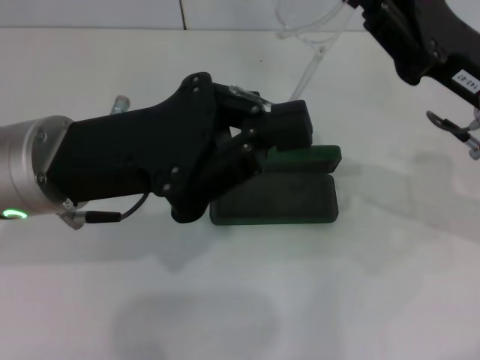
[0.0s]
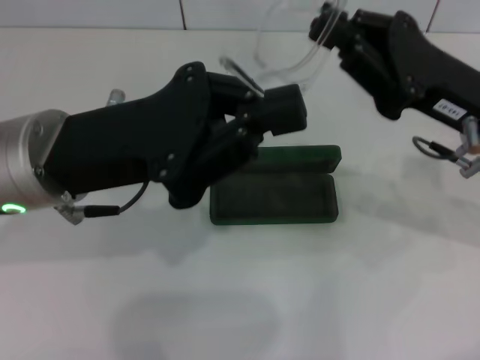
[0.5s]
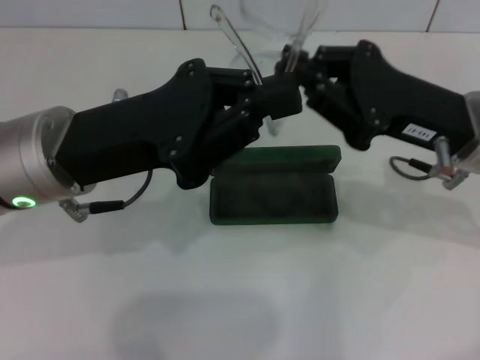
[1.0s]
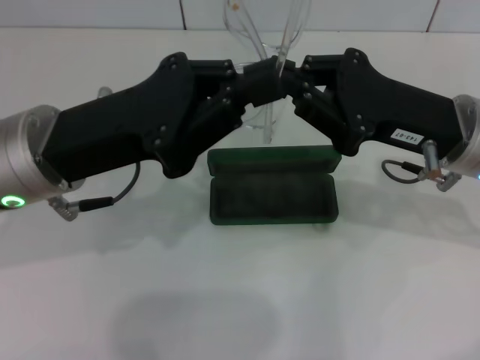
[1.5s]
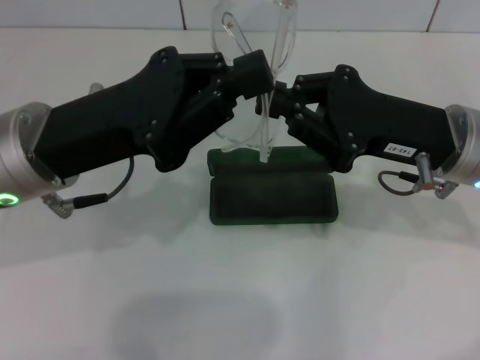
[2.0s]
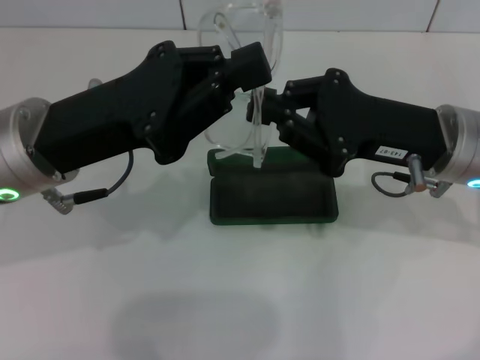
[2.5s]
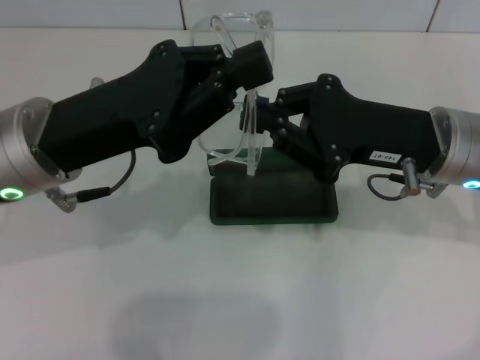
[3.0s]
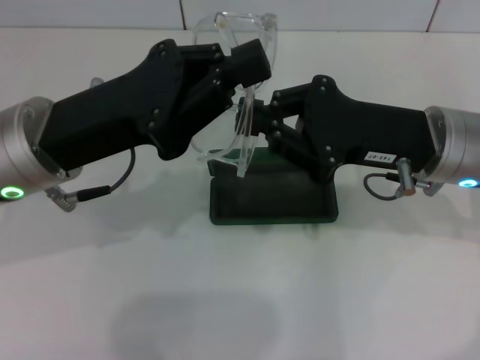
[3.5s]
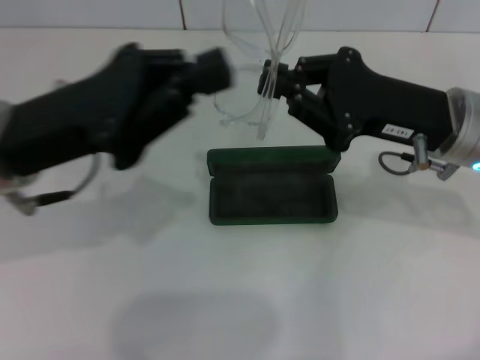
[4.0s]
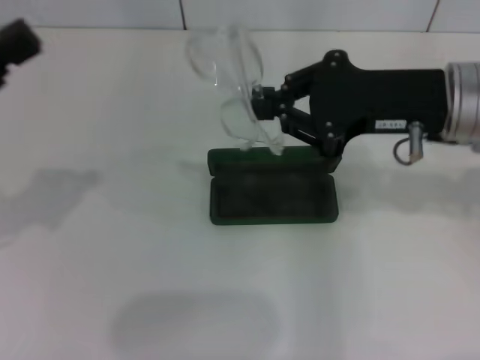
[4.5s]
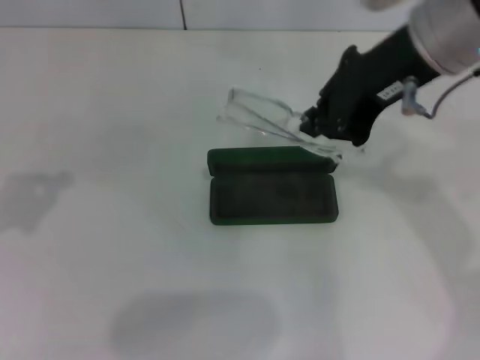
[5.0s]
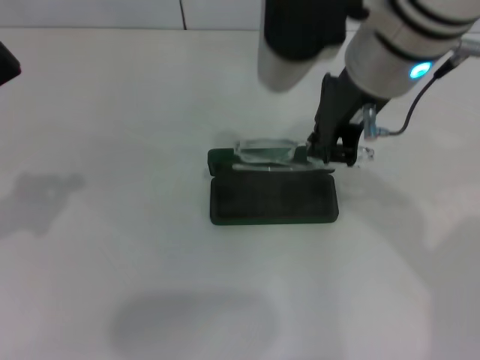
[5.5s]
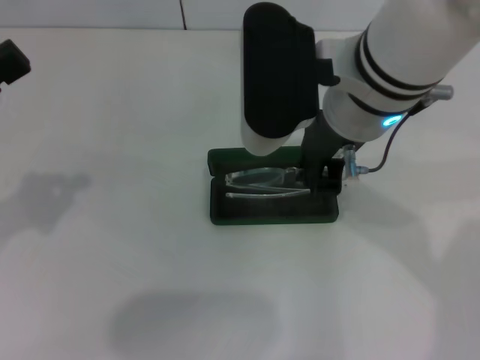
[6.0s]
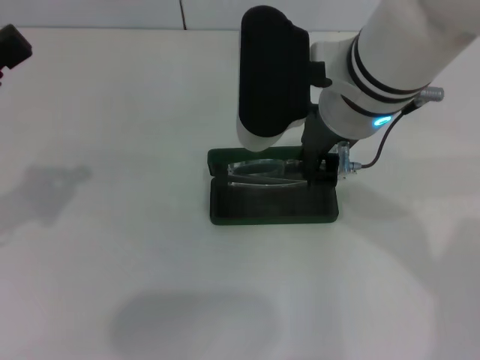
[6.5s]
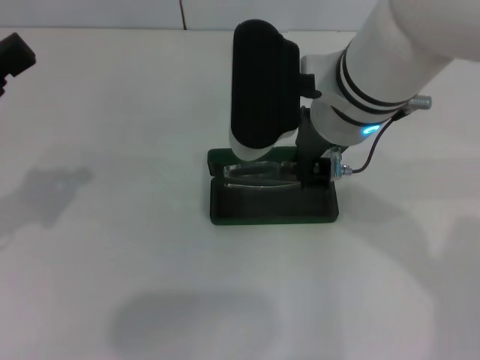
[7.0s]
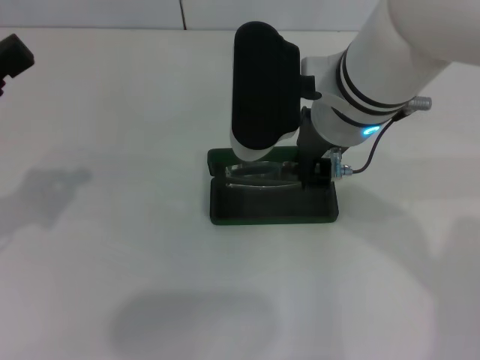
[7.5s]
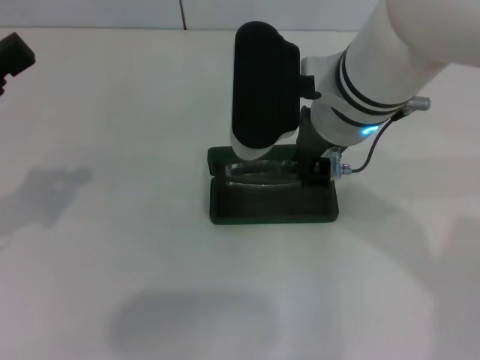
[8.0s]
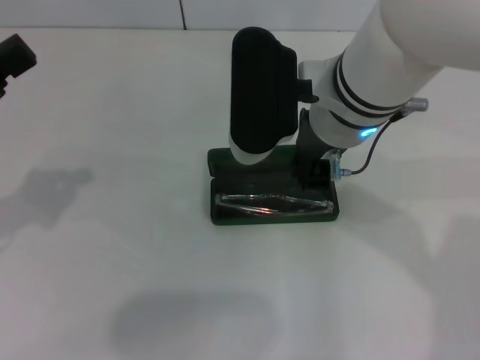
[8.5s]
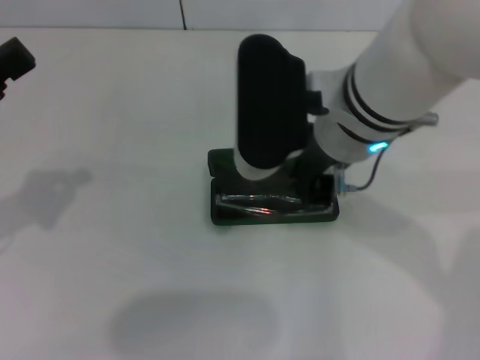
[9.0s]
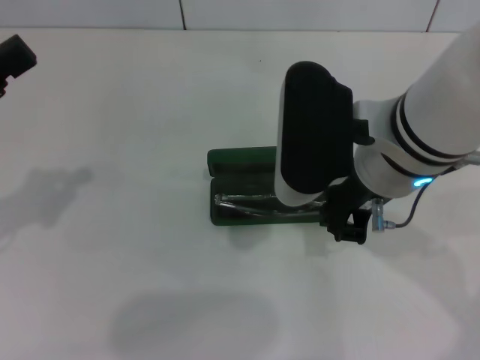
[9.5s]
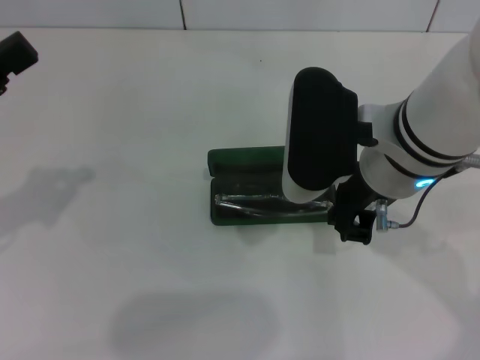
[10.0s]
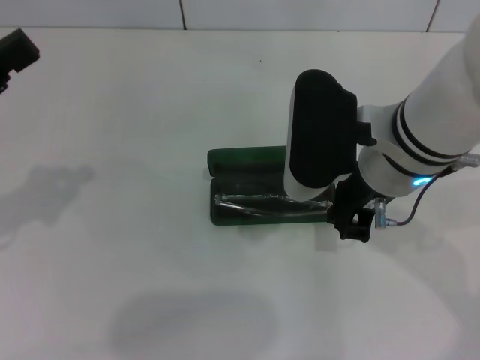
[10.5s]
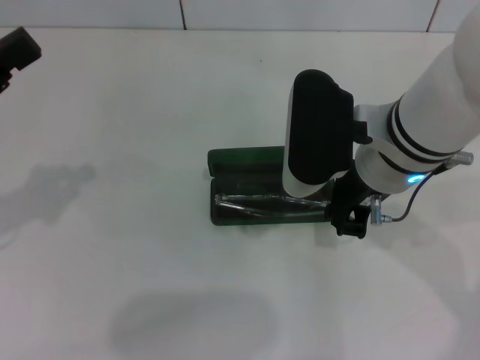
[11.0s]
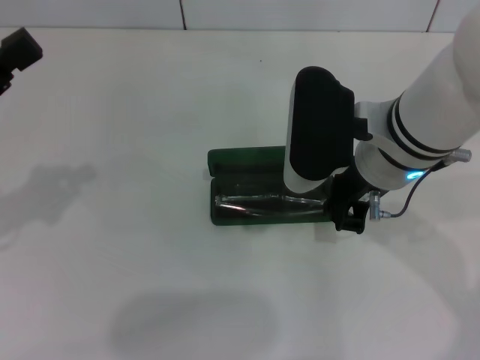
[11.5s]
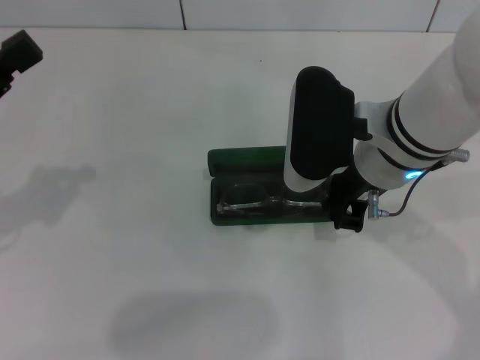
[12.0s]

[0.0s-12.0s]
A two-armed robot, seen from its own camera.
Step, 0.0s to 3.5s: Fold the frame with your left hand.
Step, 4.0s to 9.0s: Put the glasses into the case with your right hand.
2.0s to 4.0s: The grippers move only a little.
4.0s to 6.0s: The left gripper goes about 10 cm to the left. Meanwhile the right gripper shifts about 15 cm to the left and upward.
6.0s to 8.0s: The grippers make only small movements.
8.0s to 10.0s: The right gripper ends up approximately 5 cm from where it was.
10.0s to 12.0s: The grippers make only small movements.

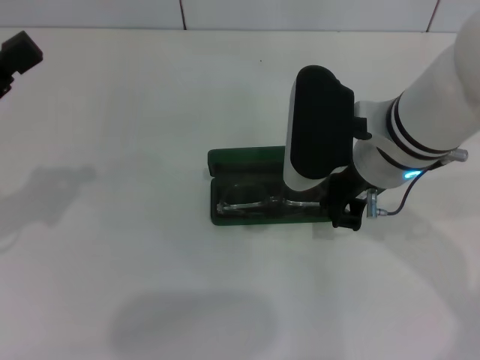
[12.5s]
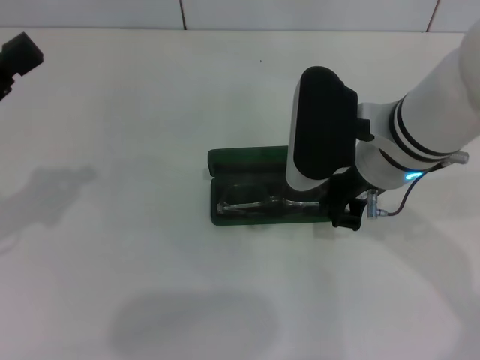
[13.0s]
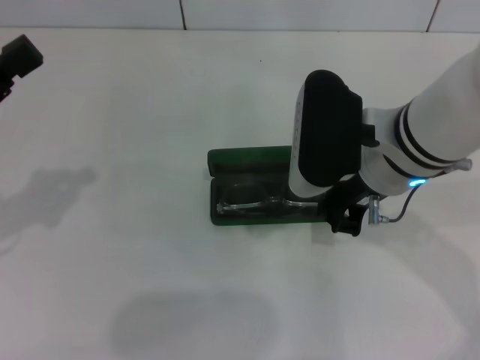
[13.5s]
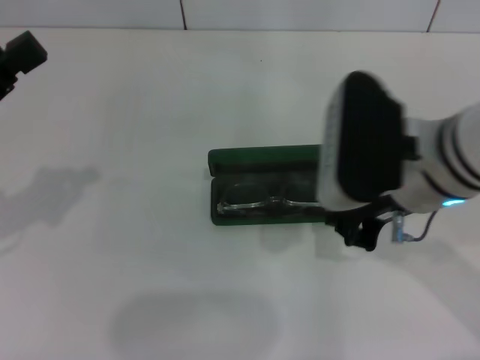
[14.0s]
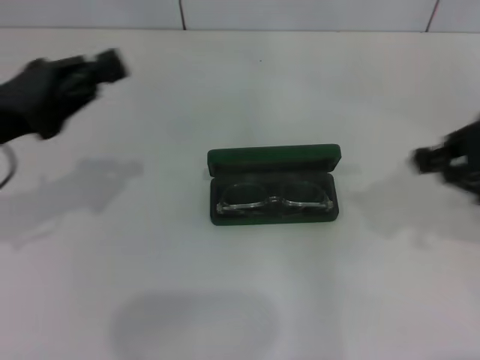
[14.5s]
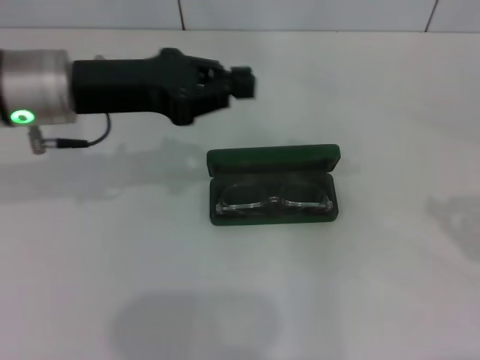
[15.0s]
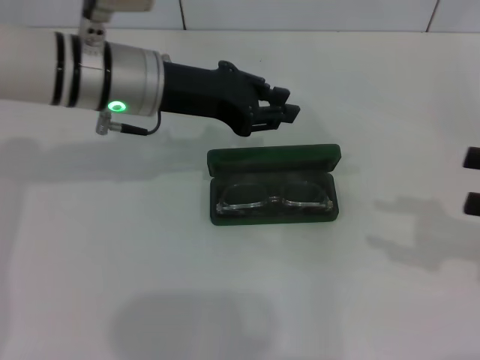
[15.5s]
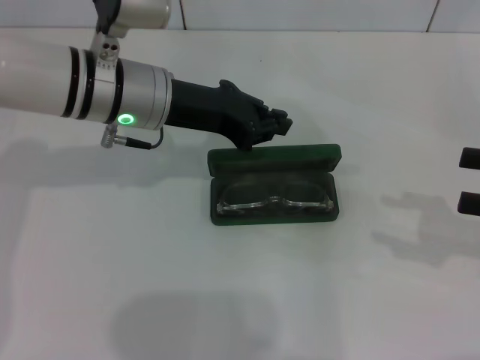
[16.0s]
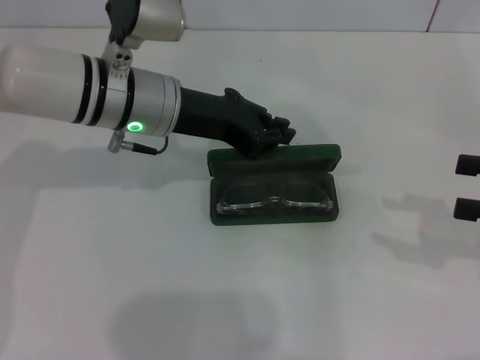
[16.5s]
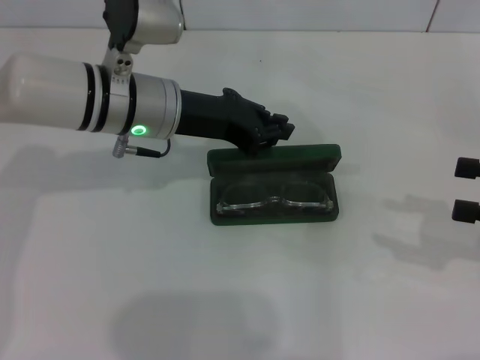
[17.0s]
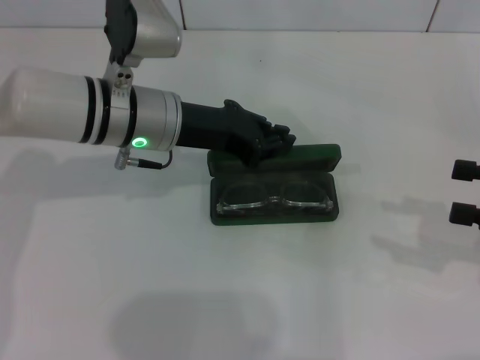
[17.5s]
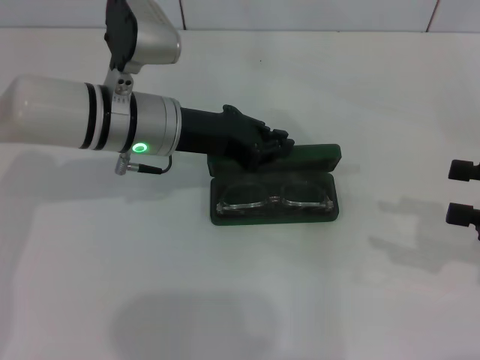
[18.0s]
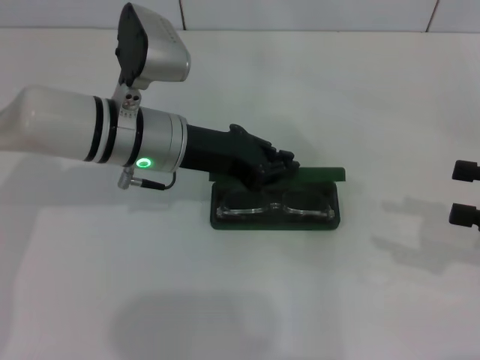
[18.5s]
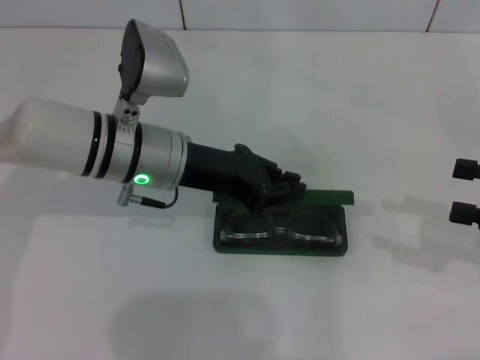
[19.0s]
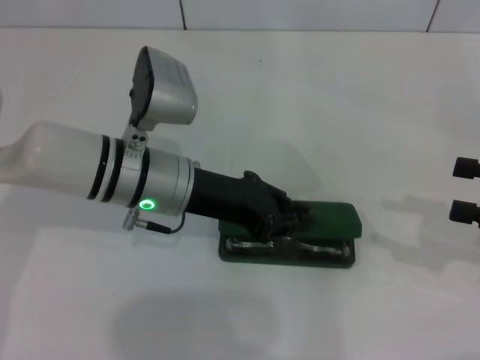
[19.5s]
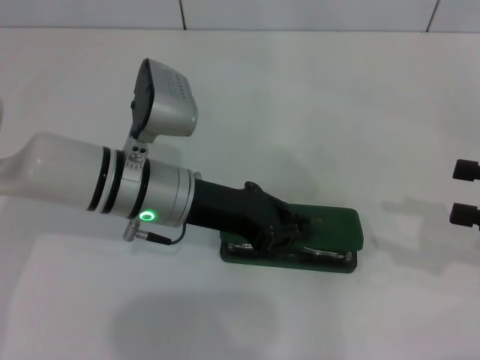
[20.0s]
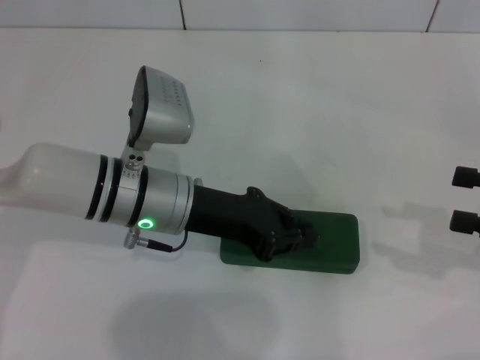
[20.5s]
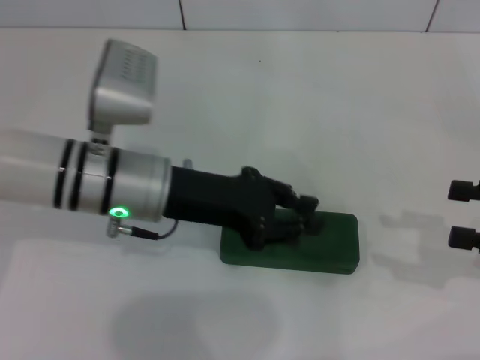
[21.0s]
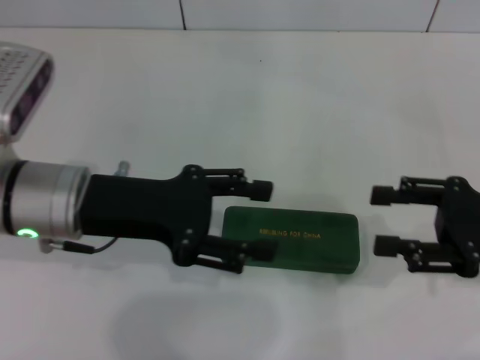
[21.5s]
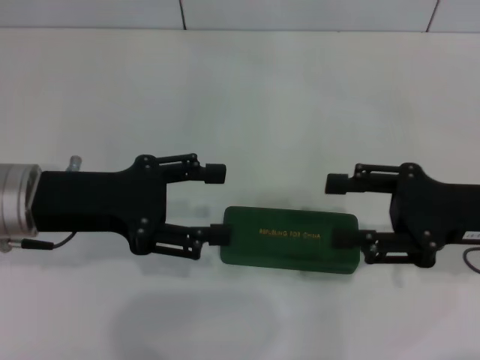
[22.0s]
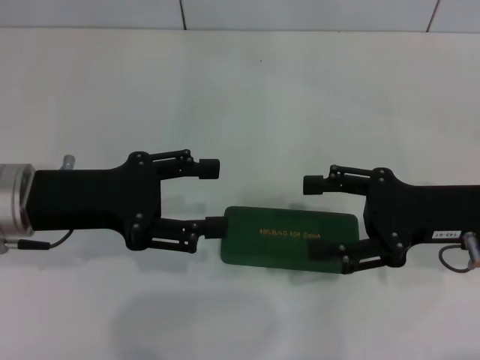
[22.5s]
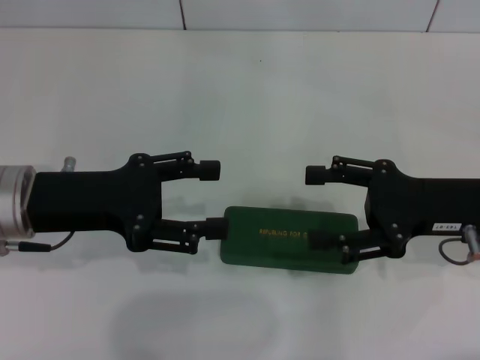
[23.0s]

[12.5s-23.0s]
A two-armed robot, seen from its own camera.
Step, 12.5s to 20.0s: Close the glasses case with your left hand.
12.5s to 14.5s: The left gripper changes place by some 5 cm. Meanwhile the right gripper moves to the right, approximately 20 cm.
14.5s to 16.5s: The left gripper shifts roughly 20 cm to the right and forward, while the right gripper is displaced downward and to the right by about 10 cm, and opens its fingers.
16.5s to 19.0s: The grippers move only a little.
19.0s to 21.0s: The grippers move only a little.
21.0s to 23.0s: The left gripper travels to the left by some 10 cm, and opens its fingers, while the right gripper travels to the left and forward by roughly 15 cm.
